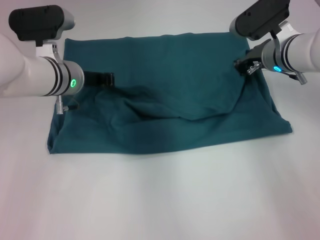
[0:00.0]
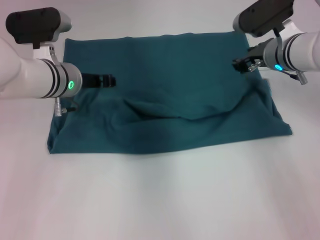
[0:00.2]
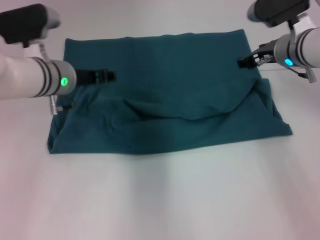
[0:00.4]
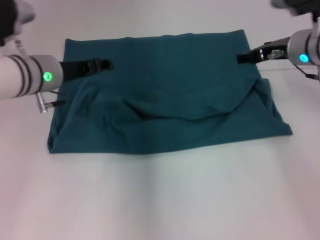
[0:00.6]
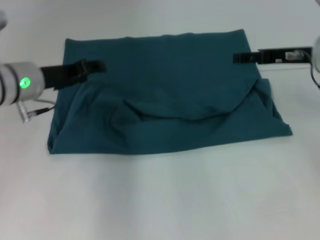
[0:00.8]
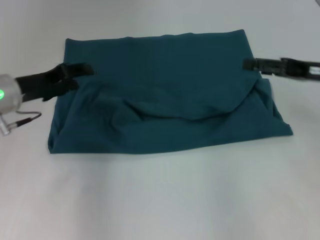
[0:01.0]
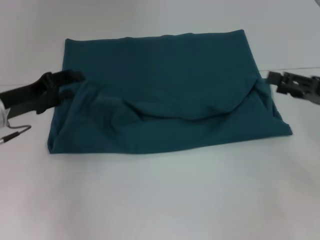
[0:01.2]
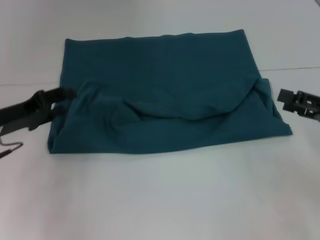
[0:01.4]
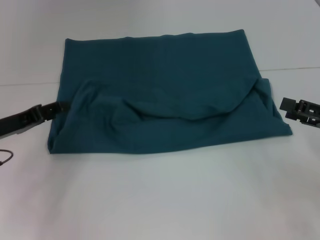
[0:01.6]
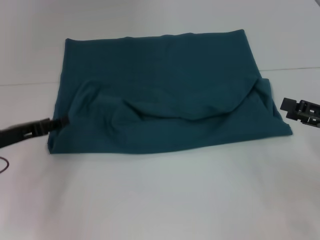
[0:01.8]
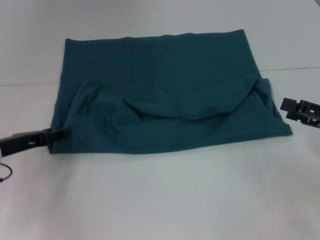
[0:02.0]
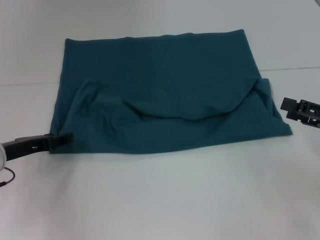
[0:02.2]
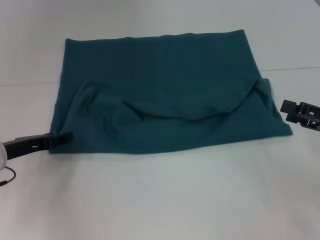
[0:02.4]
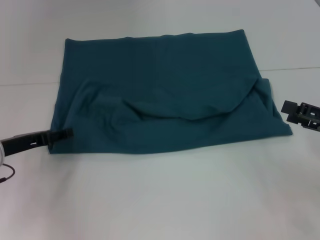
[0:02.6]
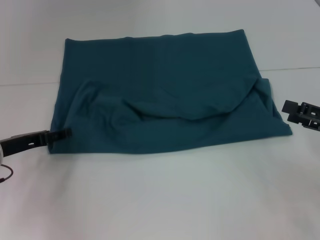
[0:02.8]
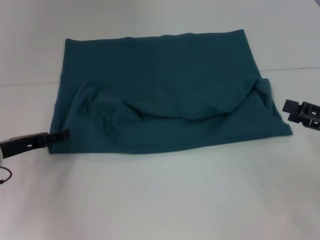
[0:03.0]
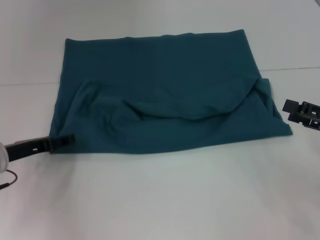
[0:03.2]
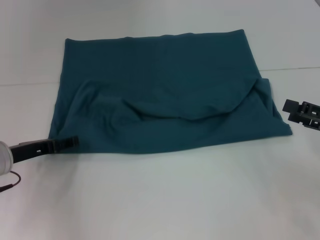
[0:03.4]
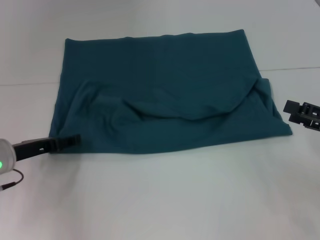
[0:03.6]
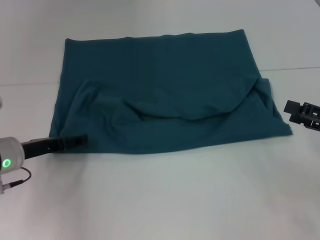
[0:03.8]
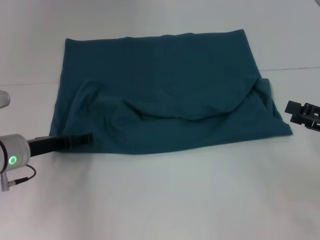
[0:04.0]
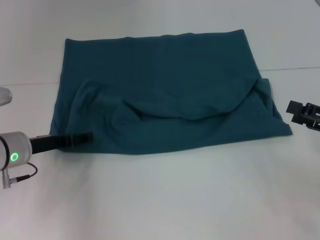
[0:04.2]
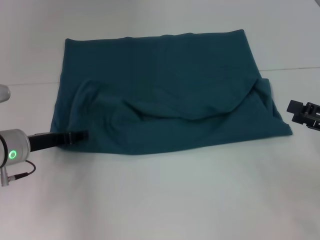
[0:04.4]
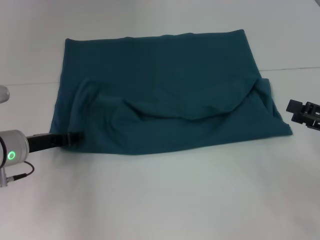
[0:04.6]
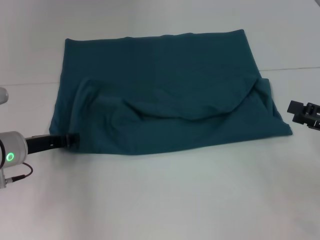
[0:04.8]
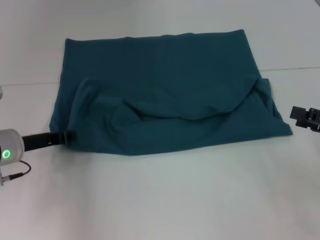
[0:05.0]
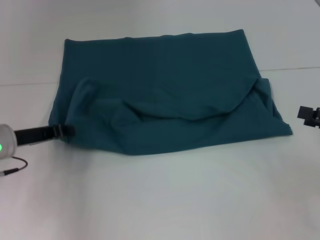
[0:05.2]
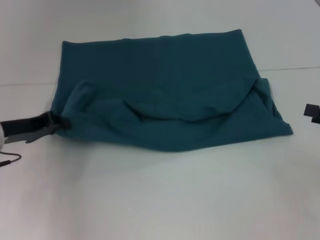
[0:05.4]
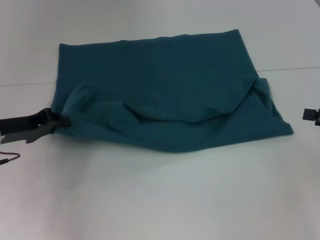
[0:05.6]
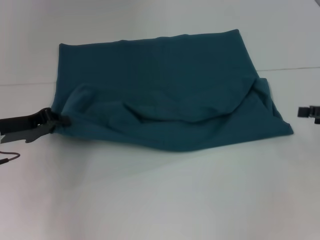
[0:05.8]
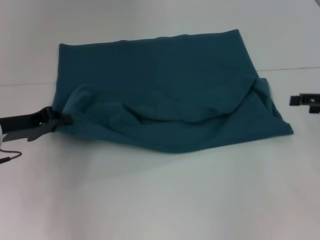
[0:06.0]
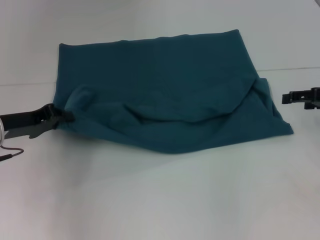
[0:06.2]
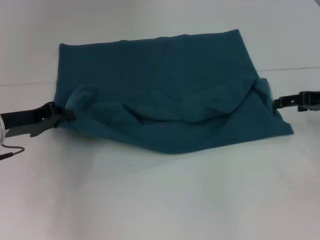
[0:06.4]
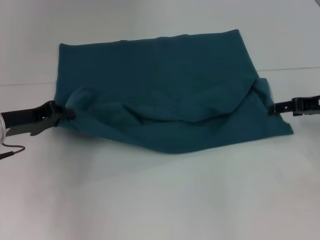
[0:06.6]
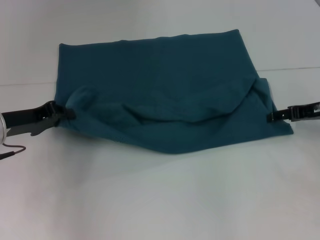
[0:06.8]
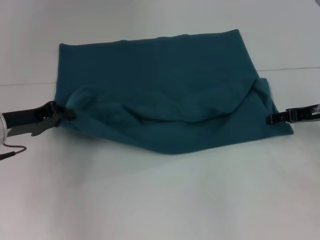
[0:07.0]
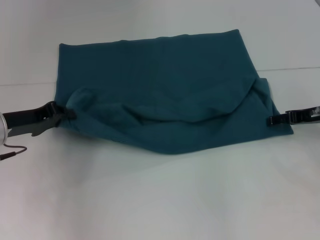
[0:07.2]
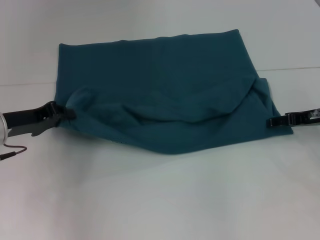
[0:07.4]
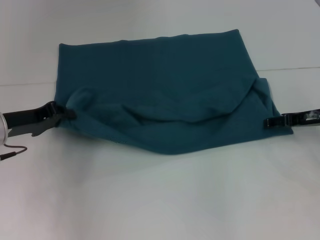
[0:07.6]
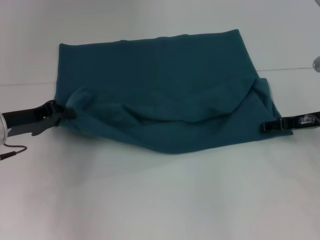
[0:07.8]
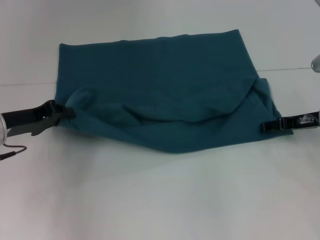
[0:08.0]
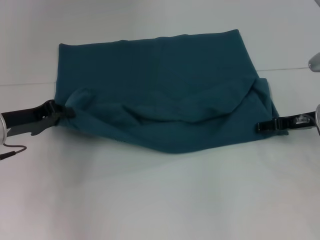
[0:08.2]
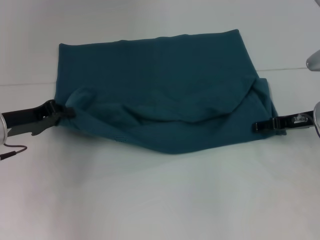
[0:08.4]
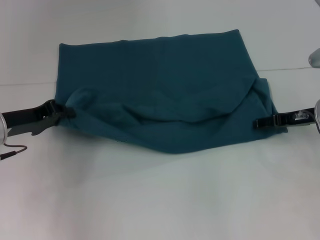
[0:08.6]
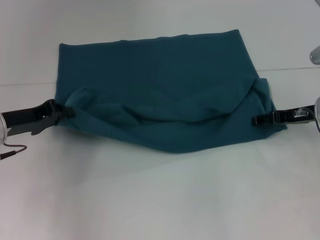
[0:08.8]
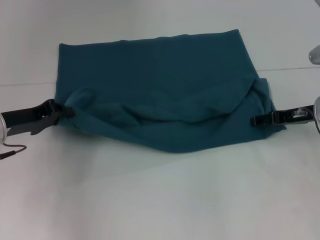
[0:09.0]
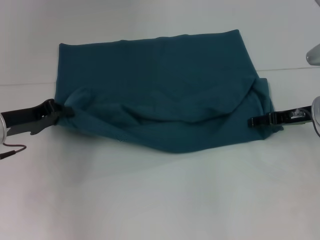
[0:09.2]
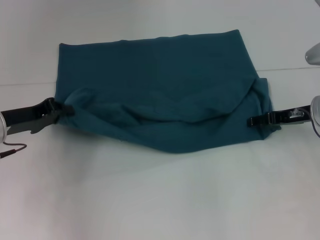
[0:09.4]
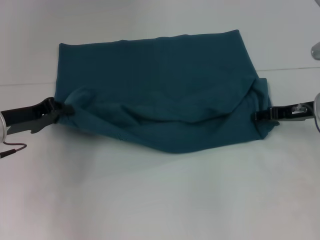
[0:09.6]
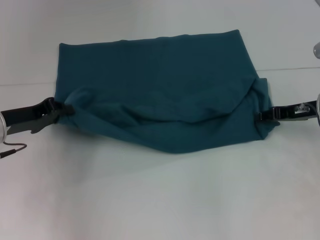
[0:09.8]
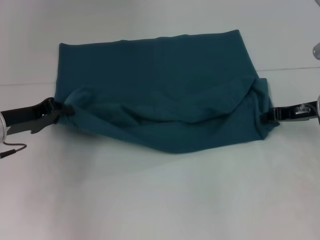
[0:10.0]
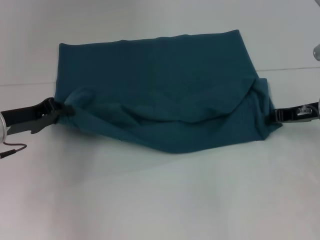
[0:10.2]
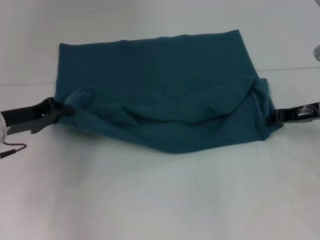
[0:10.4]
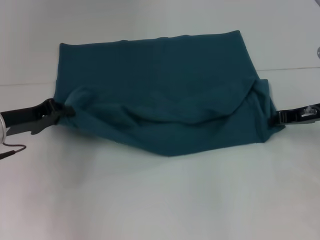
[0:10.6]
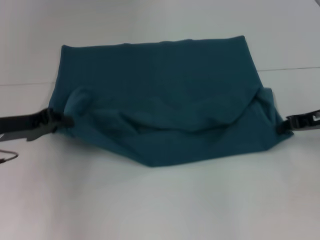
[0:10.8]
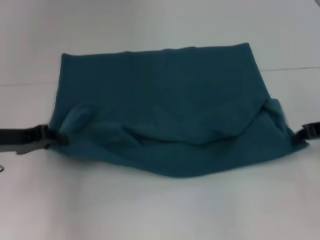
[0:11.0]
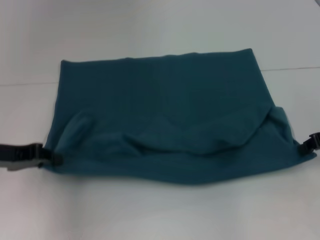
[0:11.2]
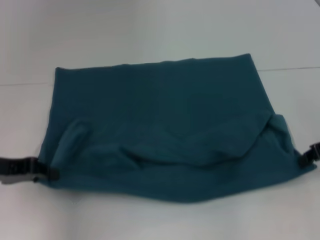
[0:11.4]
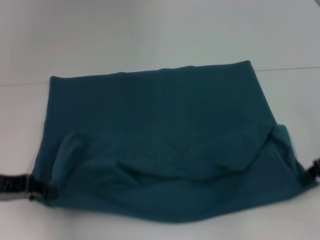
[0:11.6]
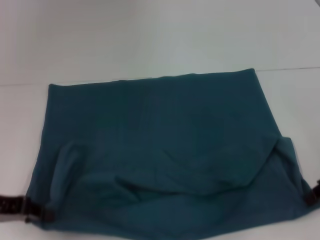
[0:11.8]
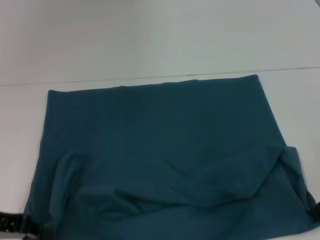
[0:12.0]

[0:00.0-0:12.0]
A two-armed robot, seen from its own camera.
0:00.0 to 0:01.6: The right gripper is displaced backward and to the right by approximately 25 cm, and opens up. Meanwhile the left gripper moves to the left and backward, about 20 cm, and opens up.
0:03.0 to 0:04.4: The grippers stay close to where they were, moving slightly.
0:04.4 to 0:06.0: The left gripper closes; the right gripper goes approximately 10 cm forward.
0:06.0 to 0:07.6: The right gripper shifts some 5 cm to the left.
0:07.6 to 0:09.0: The grippers make only small movements.
0:09.0 to 0:10.4: The right gripper closes up.
0:10.4 to 0:12.0: Both grippers travel together backward, about 10 cm.

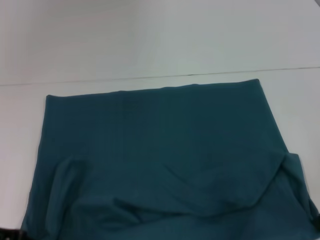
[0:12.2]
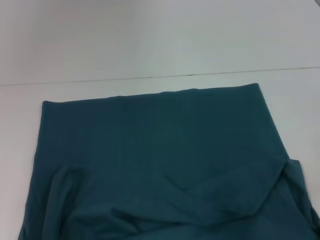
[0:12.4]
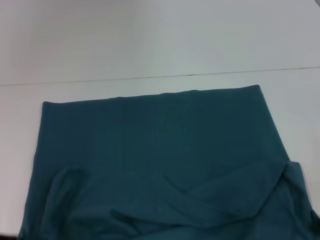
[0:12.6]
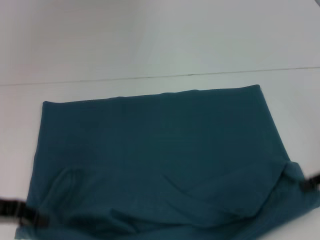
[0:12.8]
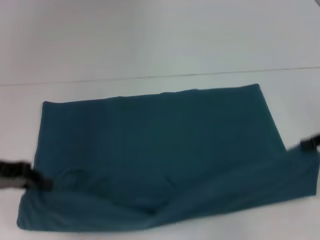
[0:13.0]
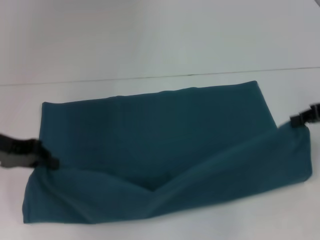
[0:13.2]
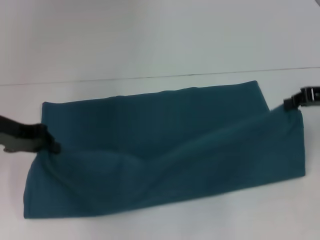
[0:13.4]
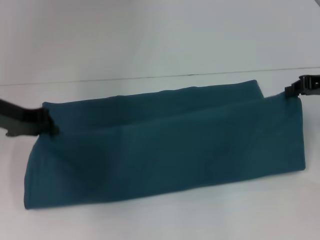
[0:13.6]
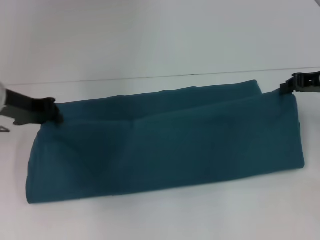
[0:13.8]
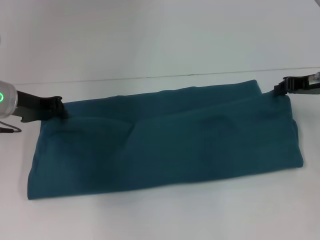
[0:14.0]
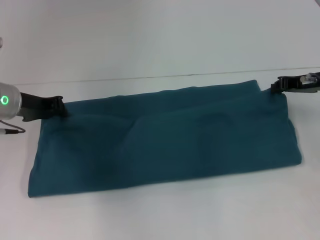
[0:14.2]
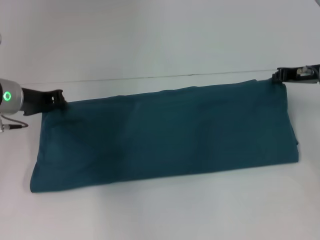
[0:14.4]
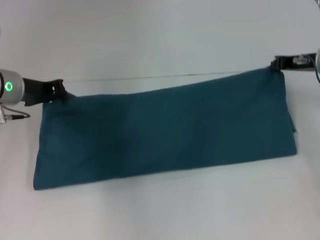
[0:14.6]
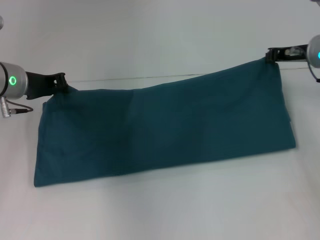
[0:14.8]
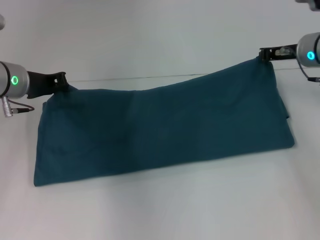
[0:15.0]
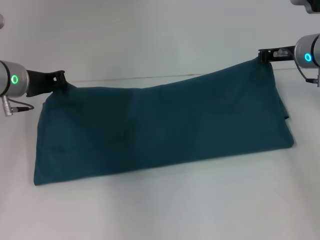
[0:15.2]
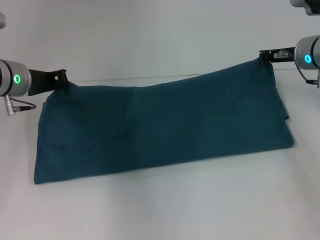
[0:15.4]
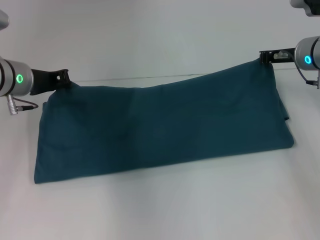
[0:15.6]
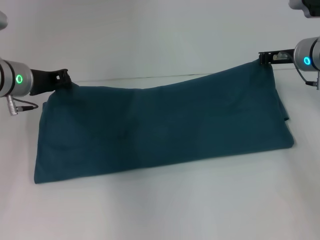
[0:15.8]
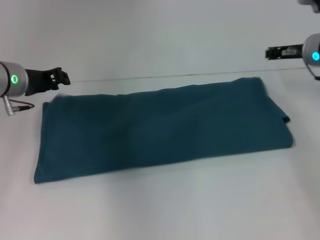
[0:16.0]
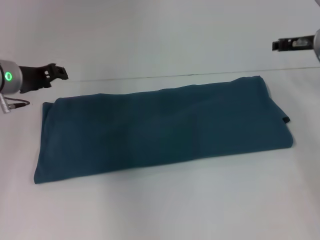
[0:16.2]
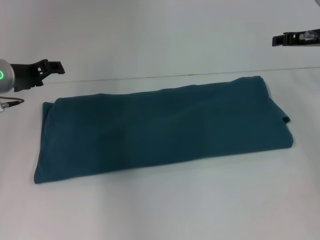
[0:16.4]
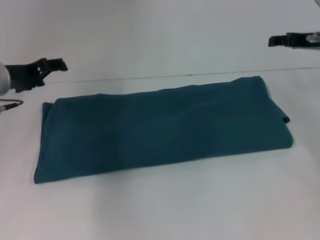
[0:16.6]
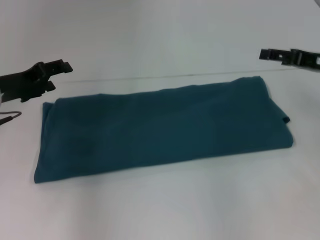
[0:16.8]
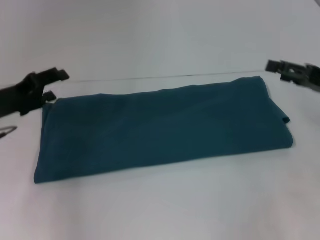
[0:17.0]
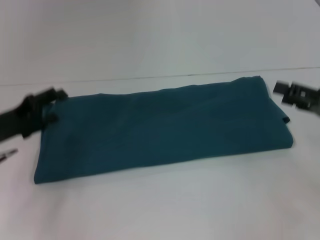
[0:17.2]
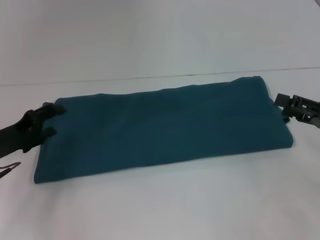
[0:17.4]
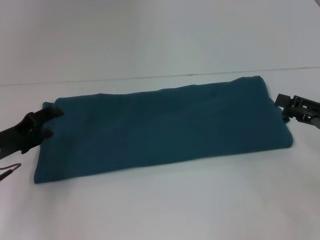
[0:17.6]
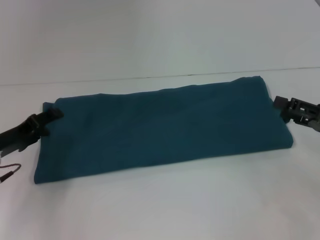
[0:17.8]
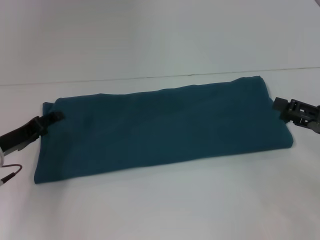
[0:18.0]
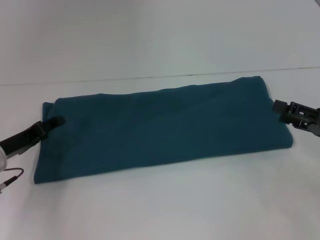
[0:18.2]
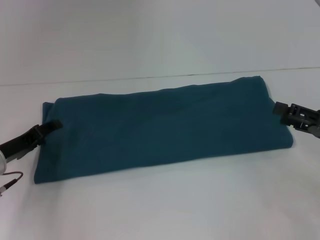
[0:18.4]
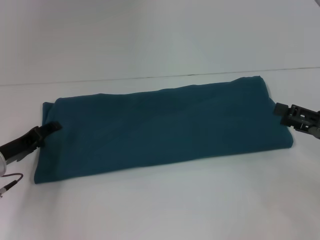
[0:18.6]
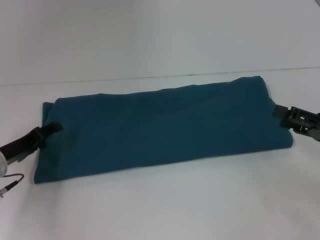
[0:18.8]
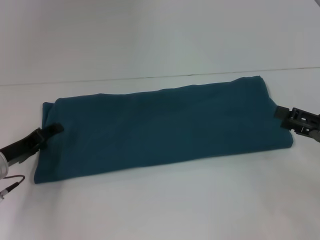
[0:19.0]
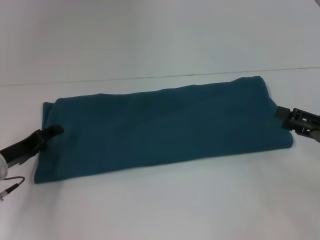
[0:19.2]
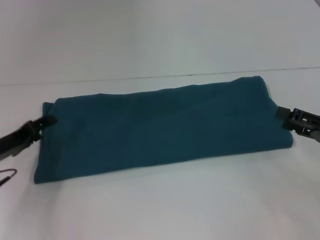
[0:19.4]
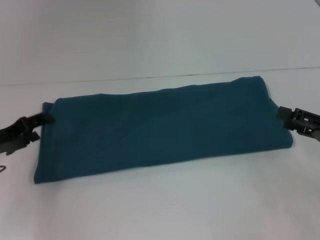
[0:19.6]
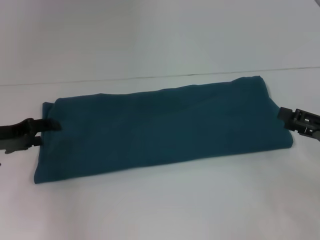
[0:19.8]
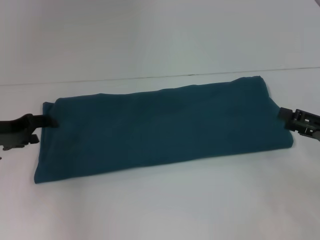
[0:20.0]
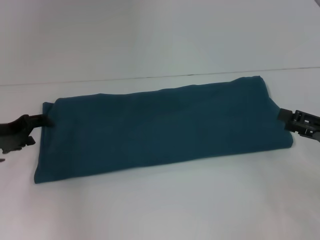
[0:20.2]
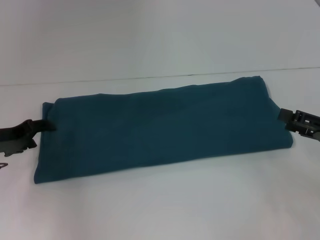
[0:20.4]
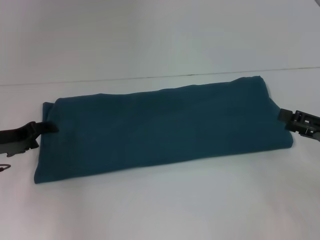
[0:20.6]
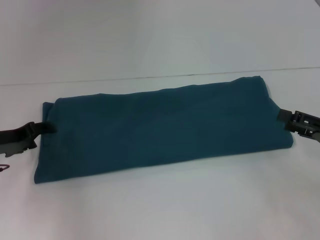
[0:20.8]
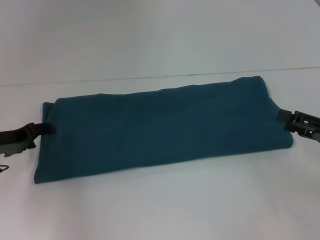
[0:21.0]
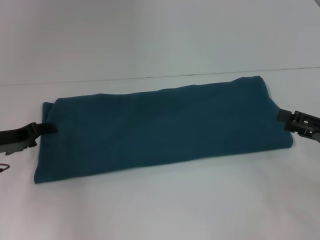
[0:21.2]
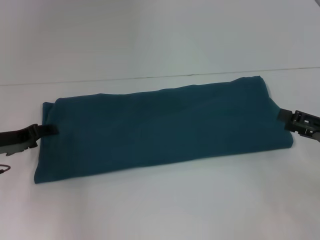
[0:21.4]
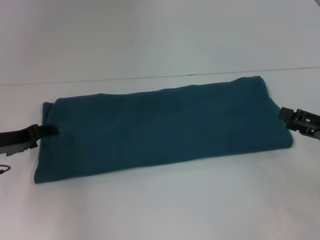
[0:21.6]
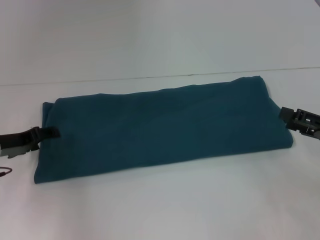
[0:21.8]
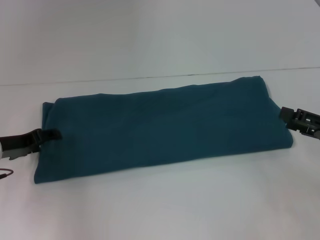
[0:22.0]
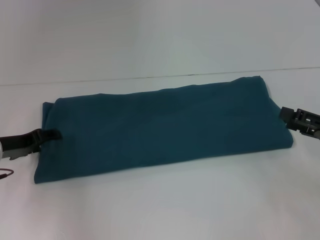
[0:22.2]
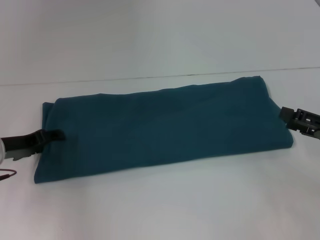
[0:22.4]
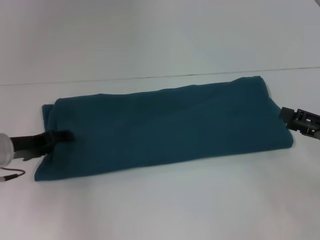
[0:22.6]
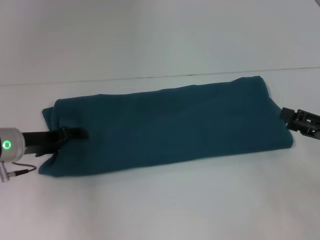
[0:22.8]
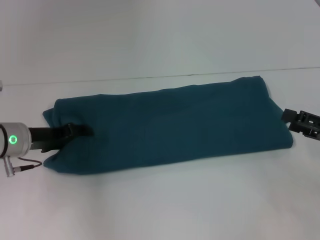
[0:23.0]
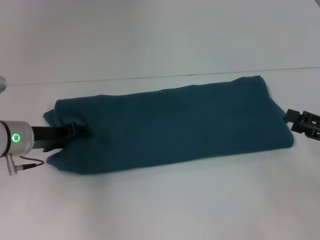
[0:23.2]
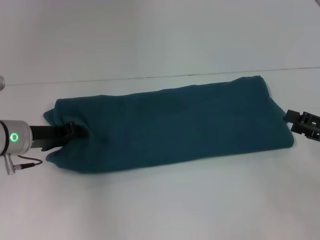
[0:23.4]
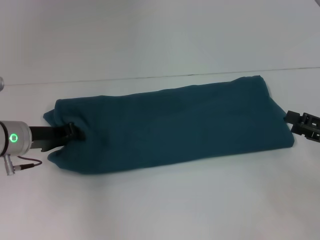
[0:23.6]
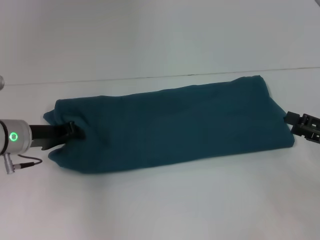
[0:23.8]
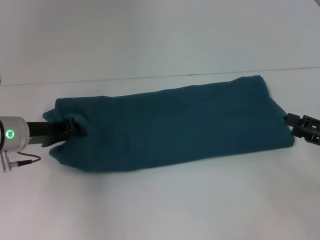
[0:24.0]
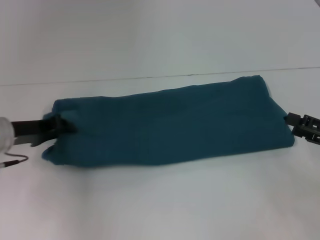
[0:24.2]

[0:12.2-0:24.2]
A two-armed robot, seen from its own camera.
Step, 0:12.6 to 0:16.2: Fold the clothes to the right.
0:12.2 to 0:13.8: Both grippers move forward, about 15 cm.
0:13.8 to 0:15.2: The right gripper shifts approximately 10 cm forward and to the left.
0:15.2 to 0:16.6: The right gripper ends up about 5 cm from where it was, and opens up; the left gripper opens its fingers.
0:16.6 to 0:18.2: The left gripper shifts roughly 15 cm downward and backward, while the right gripper travels backward and downward by roughly 20 cm.
0:18.2 to 0:19.8: The left gripper goes roughly 5 cm upward.
0:19.8 to 0:22.6: The grippers move only a little.
0:22.6 to 0:24.2: The left gripper closes its fingers.
